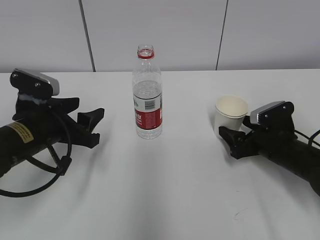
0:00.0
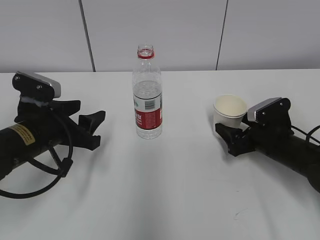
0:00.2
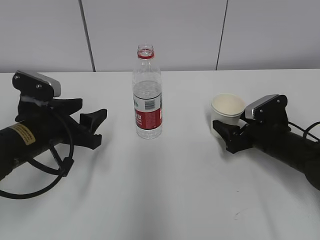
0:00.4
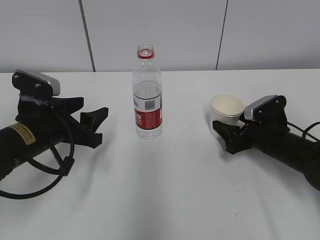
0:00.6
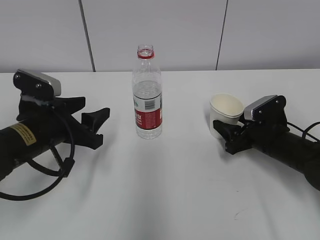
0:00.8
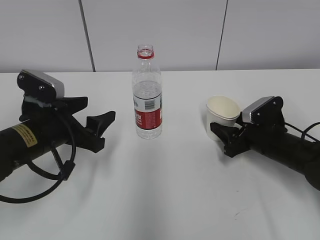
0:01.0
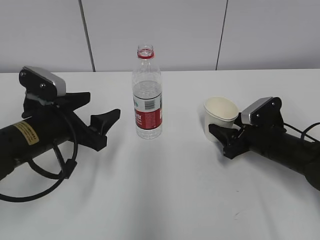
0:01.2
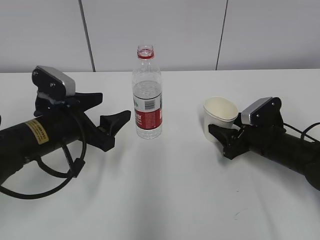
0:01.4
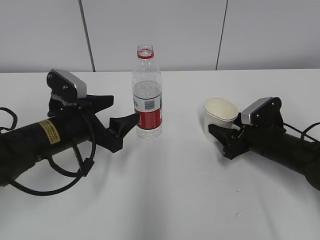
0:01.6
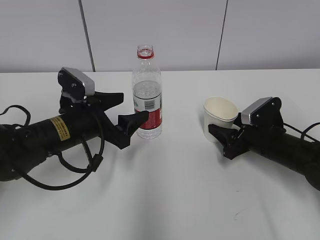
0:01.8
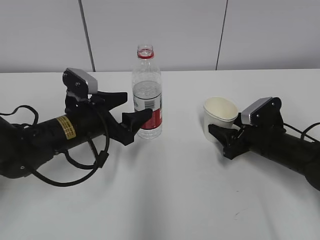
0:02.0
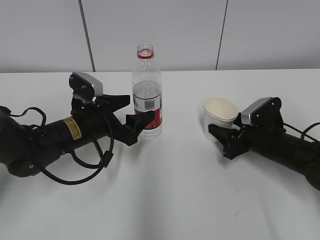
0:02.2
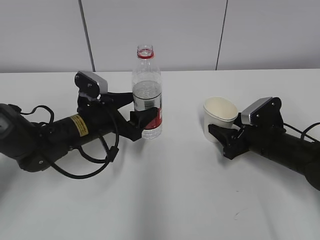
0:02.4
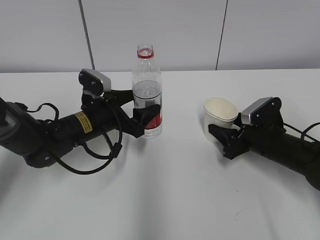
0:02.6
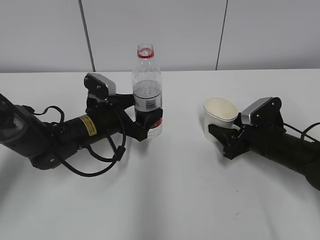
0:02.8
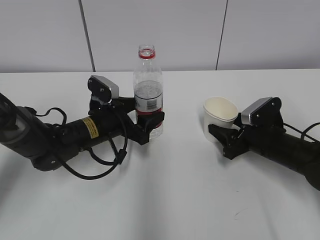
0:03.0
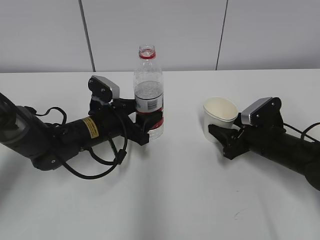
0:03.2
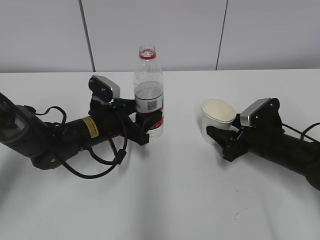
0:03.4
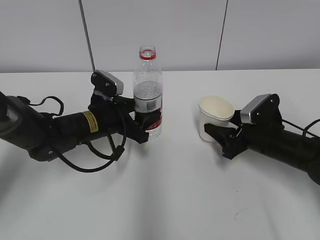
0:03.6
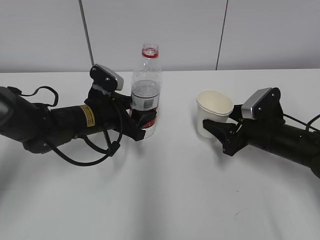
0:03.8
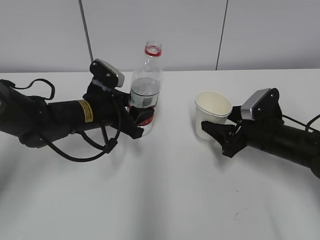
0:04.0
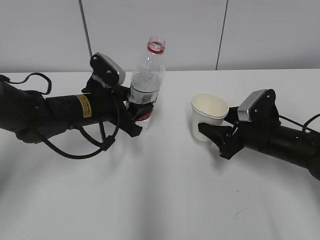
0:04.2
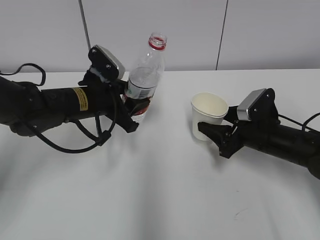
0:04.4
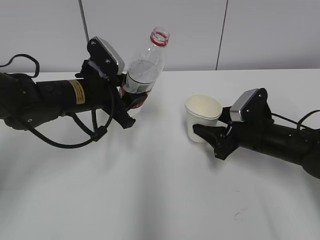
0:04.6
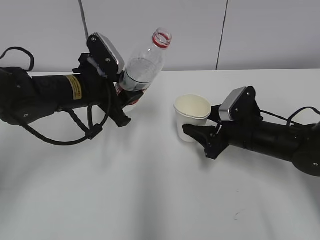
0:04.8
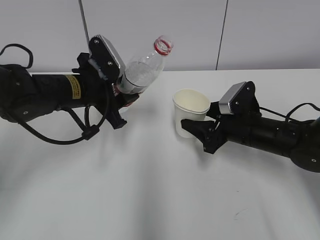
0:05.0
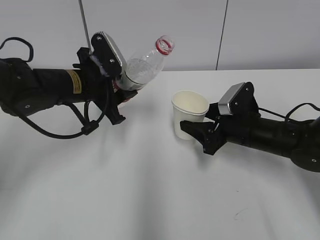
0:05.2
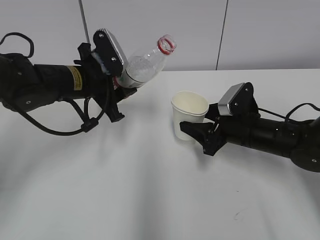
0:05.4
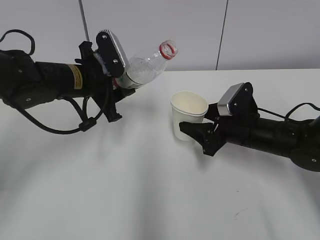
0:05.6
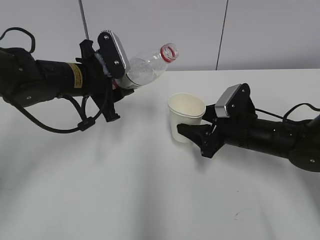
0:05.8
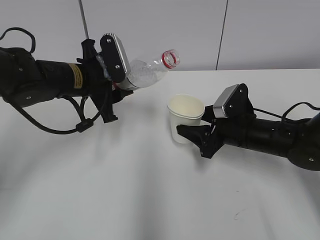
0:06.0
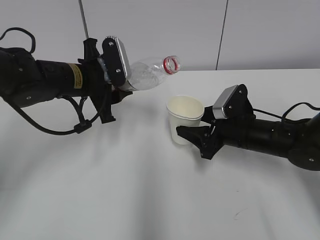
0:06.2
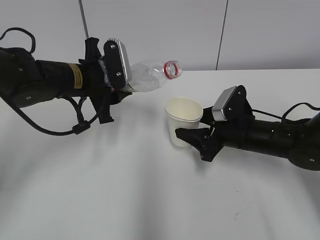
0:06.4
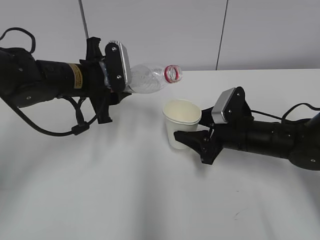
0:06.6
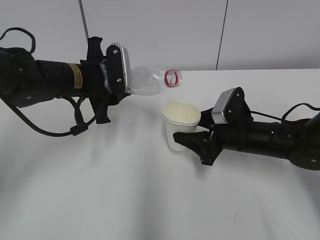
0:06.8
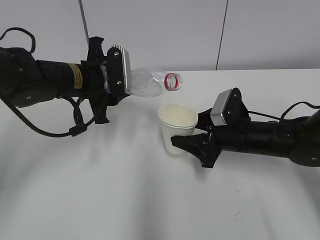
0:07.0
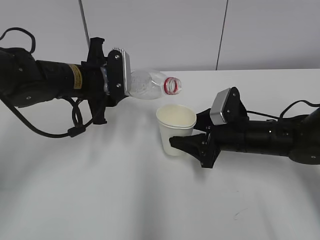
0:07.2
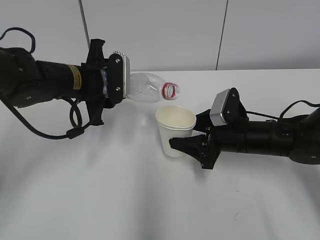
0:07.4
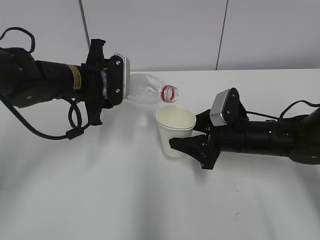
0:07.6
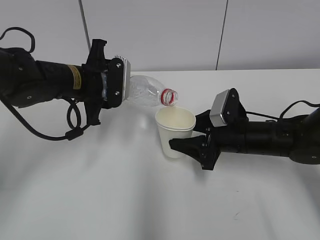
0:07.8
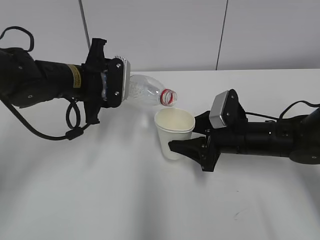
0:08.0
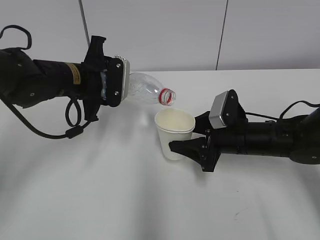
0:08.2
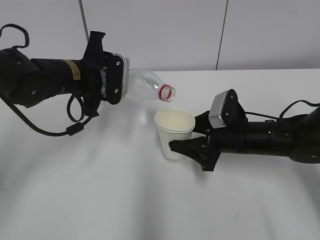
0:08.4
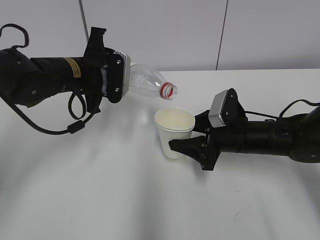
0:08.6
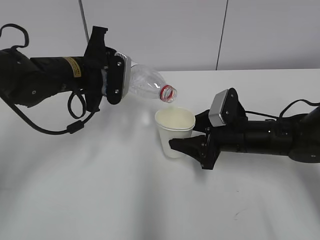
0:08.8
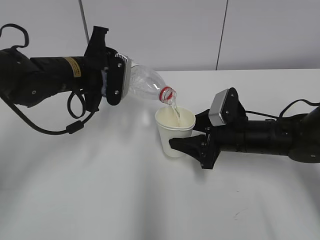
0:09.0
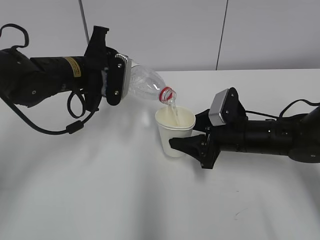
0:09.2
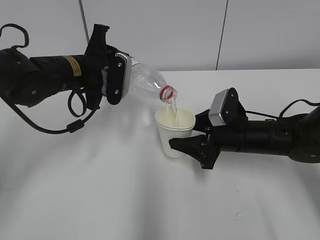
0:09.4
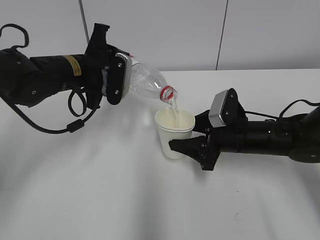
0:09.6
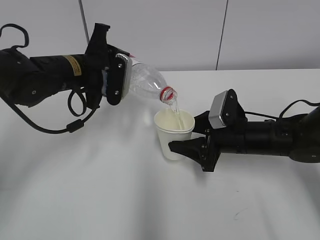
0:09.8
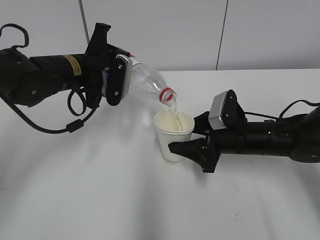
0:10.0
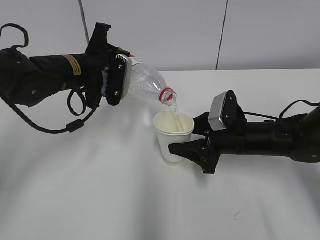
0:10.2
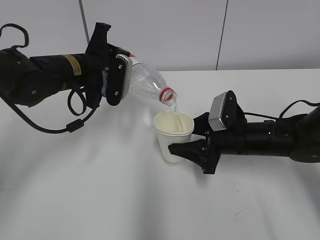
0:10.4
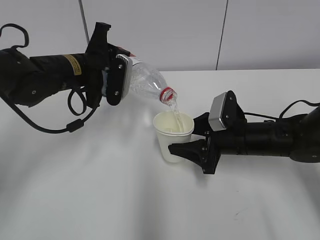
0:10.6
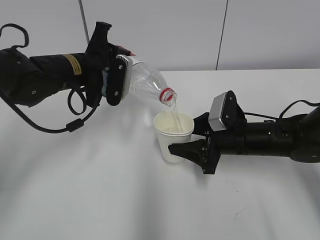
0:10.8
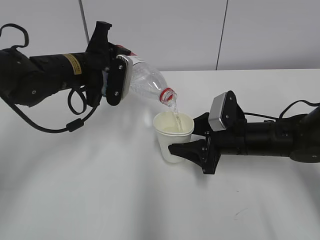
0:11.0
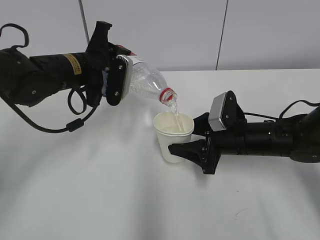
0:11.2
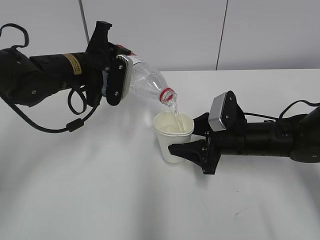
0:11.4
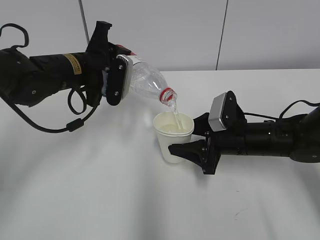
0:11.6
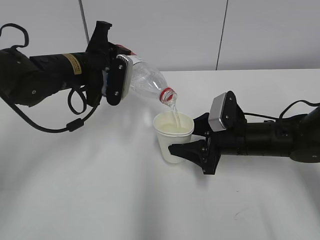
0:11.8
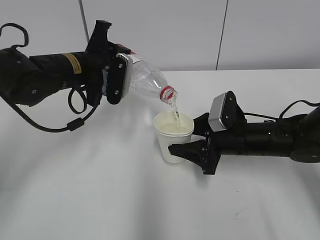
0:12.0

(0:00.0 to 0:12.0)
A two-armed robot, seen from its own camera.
Step, 0:00.0 - 0:01.6: Grab the water bottle with the left hand.
Step, 0:01.8 - 0:06.0: Lift the paper cup with the right hand.
Step, 0:06.2 - 0:09.2: Fill water with the right hand.
Step, 0:06.2 - 0:09.2: Pour water with the left hand.
Step, 0:09.4 - 0:10.2: Collect water with the left hand.
0:00.0 - 0:01.6: The left gripper opens up. Meanwhile the right gripper closes its fingers.
0:01.6 - 0:03.0: The left gripper travels forward by about 5 cm.
0:03.0 - 0:04.4: The left gripper travels upward by some 5 cm, and closes up.
0:07.6 - 0:09.0: There are only small adjustments of the grippers.
0:09.0 - 0:10.4: There are only small adjustments of the grippers.
0:10.4 - 0:12.0: Both grippers stay about where they are.

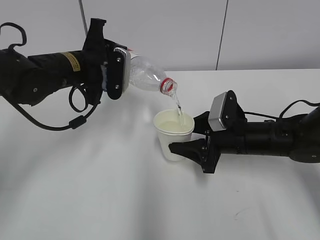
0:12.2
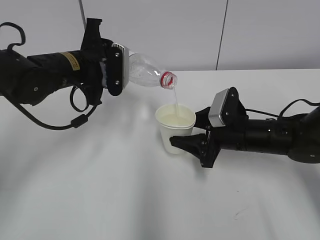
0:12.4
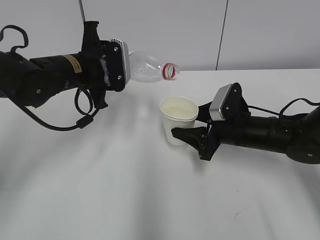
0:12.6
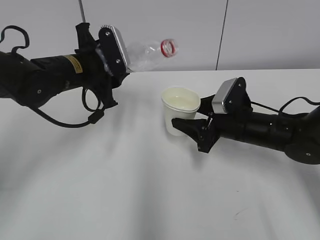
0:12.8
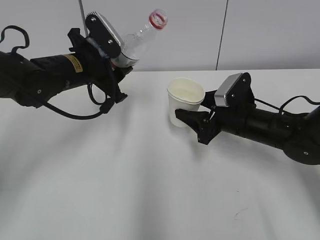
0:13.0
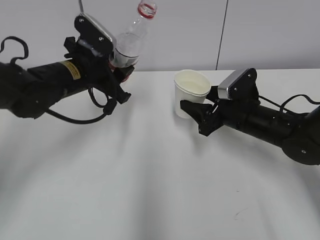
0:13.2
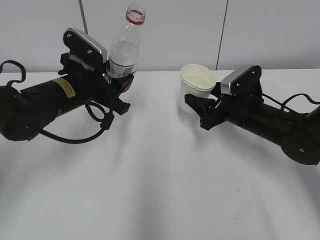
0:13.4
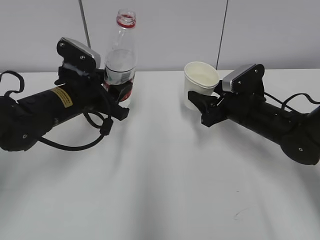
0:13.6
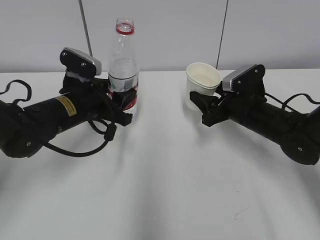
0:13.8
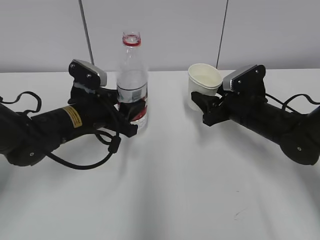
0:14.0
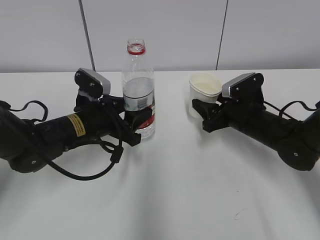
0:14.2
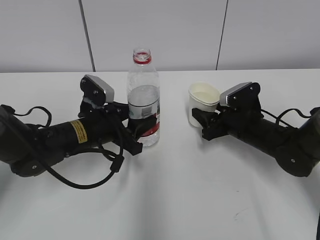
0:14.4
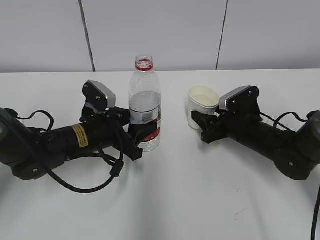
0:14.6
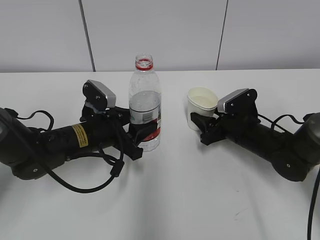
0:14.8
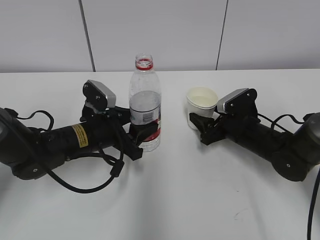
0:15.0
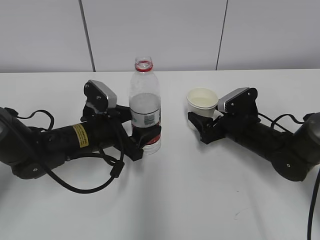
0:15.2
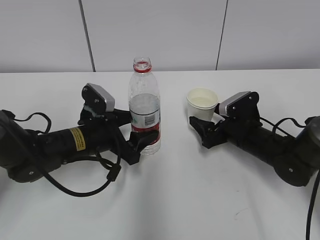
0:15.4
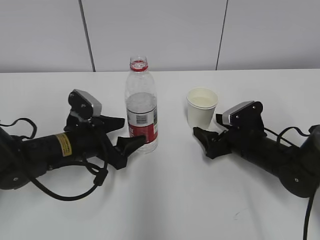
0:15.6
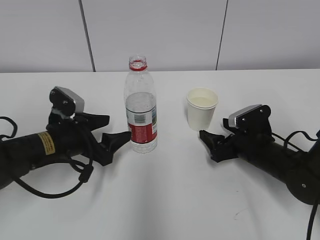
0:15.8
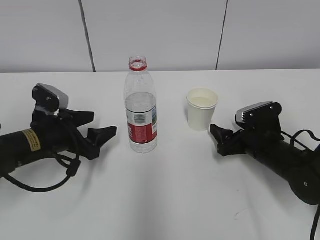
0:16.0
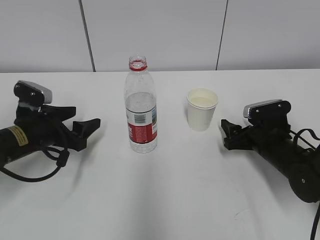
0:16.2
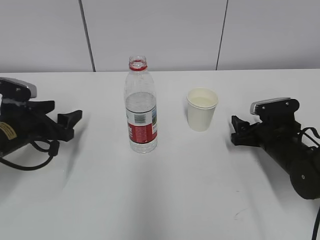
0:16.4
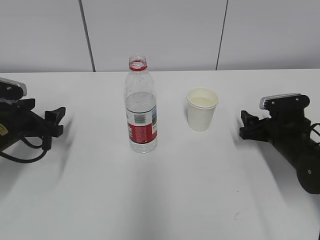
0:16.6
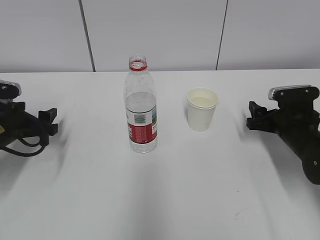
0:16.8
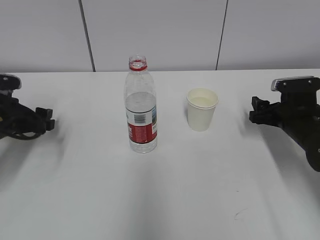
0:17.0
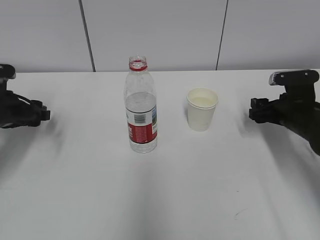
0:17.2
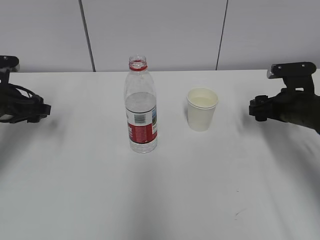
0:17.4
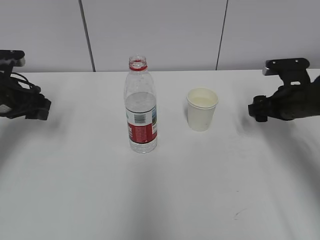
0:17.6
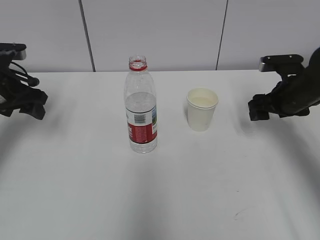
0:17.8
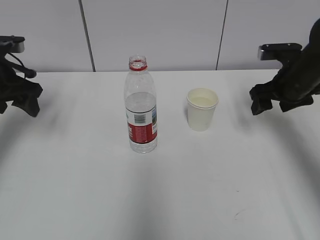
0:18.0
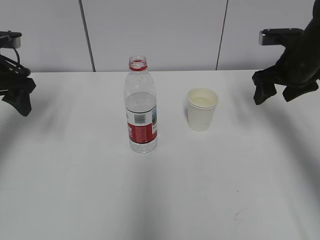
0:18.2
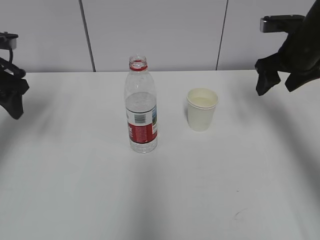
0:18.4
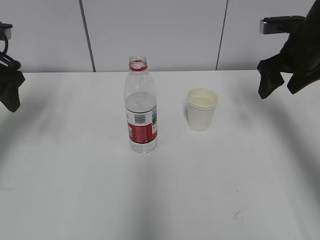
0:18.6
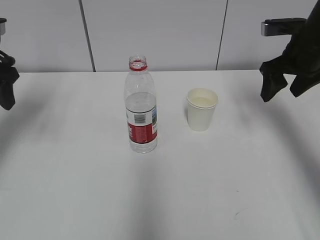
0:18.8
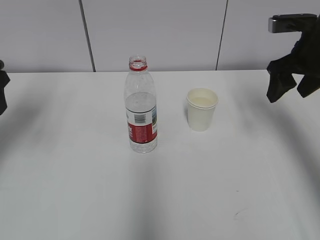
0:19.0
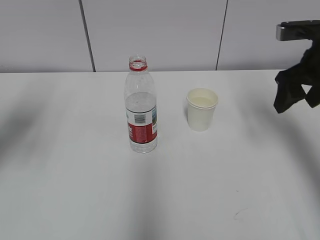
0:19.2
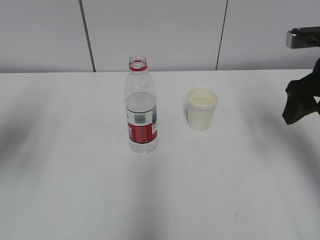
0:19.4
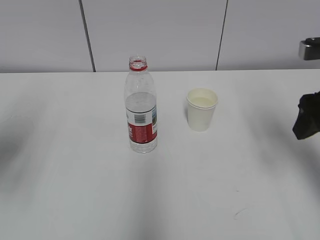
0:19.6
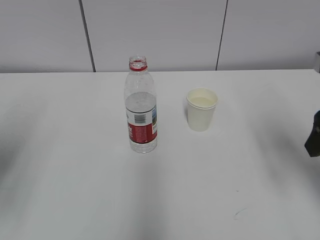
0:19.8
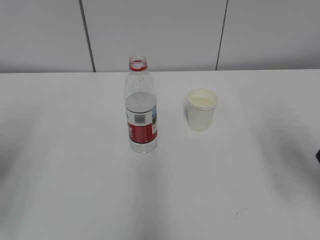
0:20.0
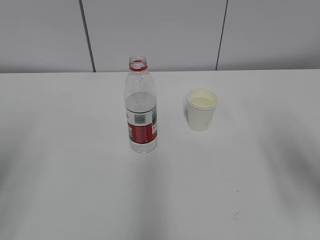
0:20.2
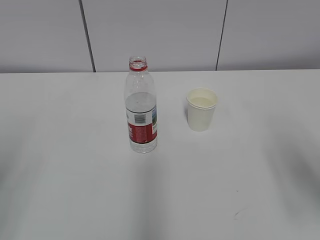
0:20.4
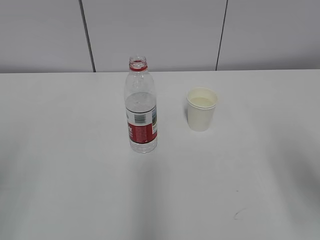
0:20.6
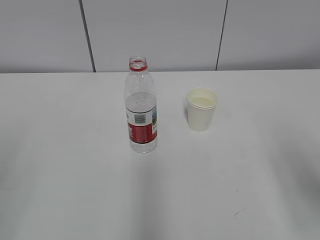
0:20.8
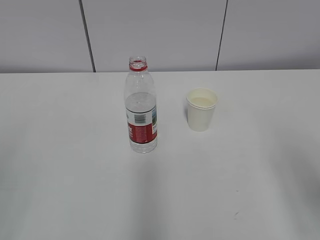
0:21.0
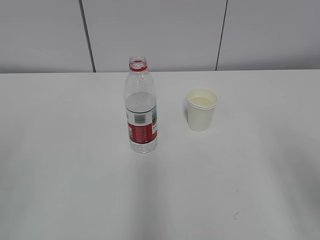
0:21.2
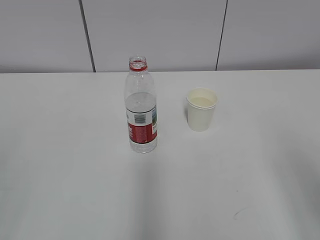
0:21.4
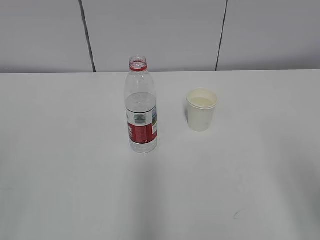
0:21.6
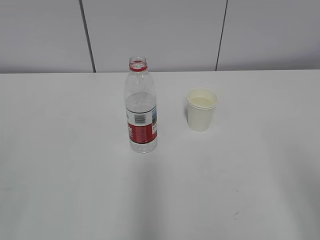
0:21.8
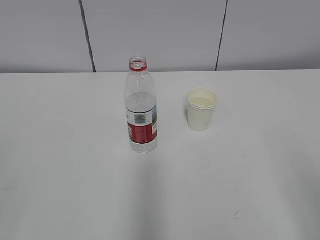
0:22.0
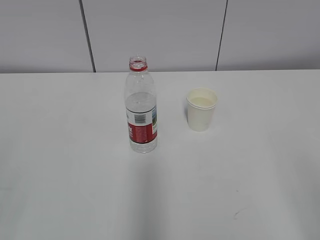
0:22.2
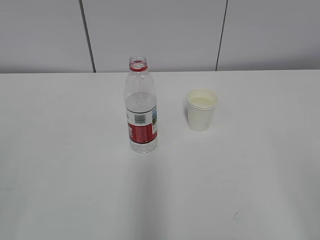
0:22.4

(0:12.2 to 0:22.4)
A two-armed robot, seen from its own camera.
0:12.2 - 0:13.6: The left gripper shifts by approximately 5 cm.
0:13.6 - 0:15.2: Both grippers travel together downward, approximately 5 cm. The right gripper opens. Meanwhile the left gripper opens up.
0:15.2 - 0:16.6: The right gripper shifts about 5 cm to the right. The left gripper heads to the left, covering about 15 cm.
0:16.6 - 0:18.0: The left gripper shifts some 10 cm upward. The right gripper shifts approximately 15 cm upward and forward.
0:18.0 - 0:19.4: The right gripper shifts about 10 cm upward and backward; the left gripper moves backward and upward, about 15 cm.
0:19.4 - 0:21.0: The grippers both shift backward by about 20 cm.
